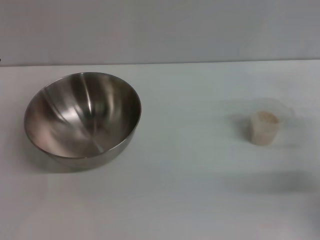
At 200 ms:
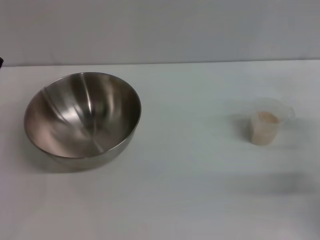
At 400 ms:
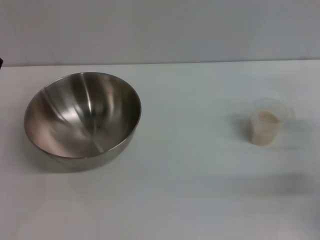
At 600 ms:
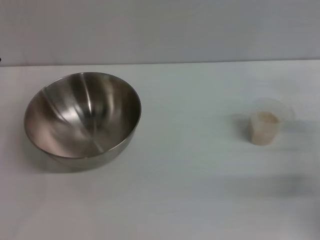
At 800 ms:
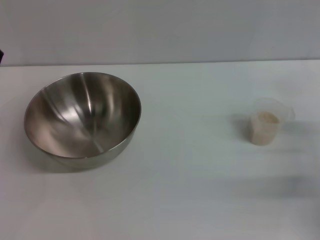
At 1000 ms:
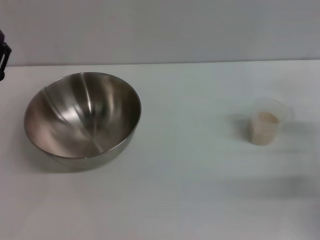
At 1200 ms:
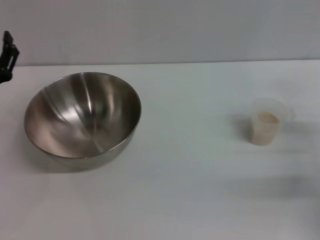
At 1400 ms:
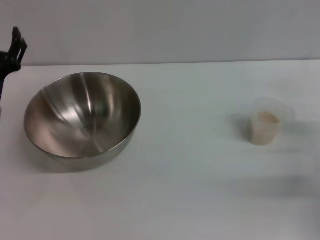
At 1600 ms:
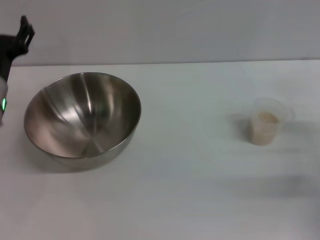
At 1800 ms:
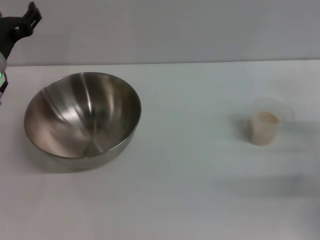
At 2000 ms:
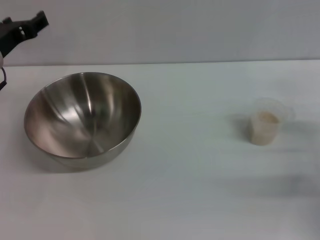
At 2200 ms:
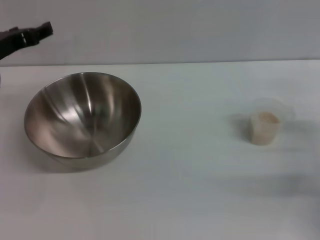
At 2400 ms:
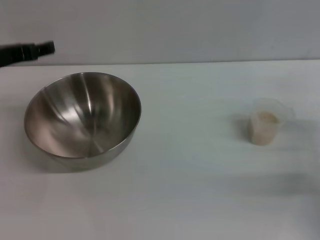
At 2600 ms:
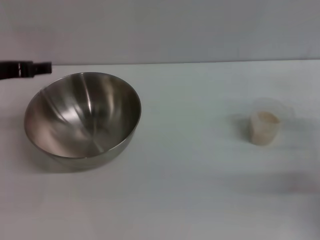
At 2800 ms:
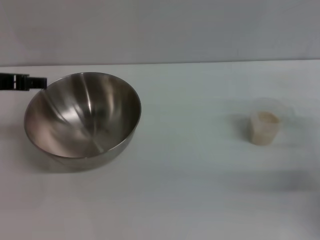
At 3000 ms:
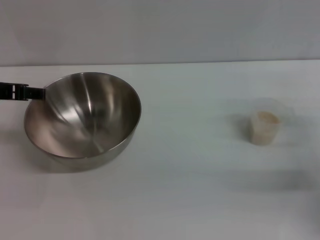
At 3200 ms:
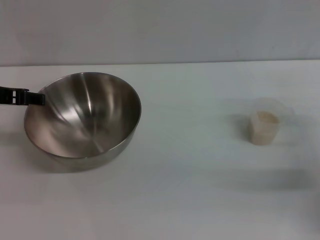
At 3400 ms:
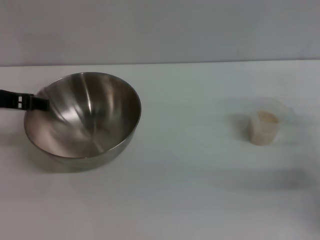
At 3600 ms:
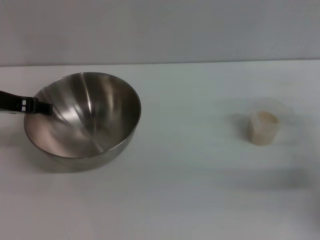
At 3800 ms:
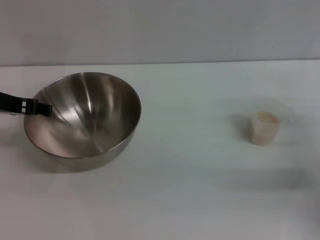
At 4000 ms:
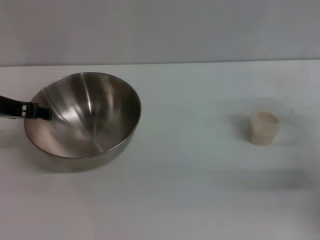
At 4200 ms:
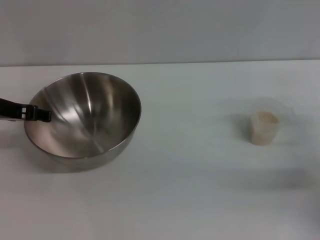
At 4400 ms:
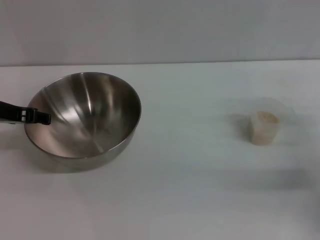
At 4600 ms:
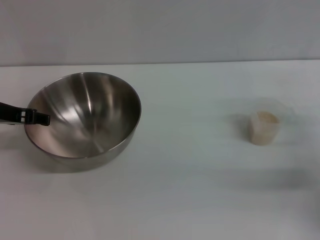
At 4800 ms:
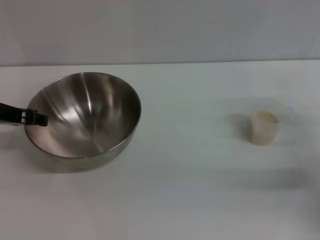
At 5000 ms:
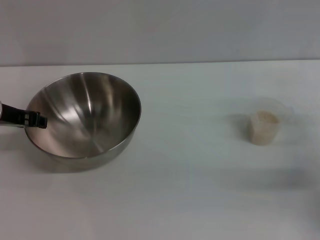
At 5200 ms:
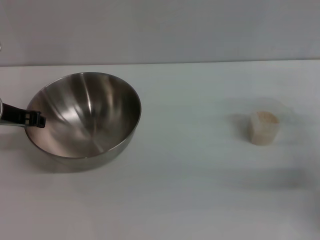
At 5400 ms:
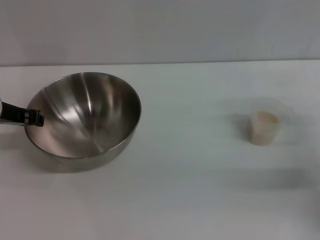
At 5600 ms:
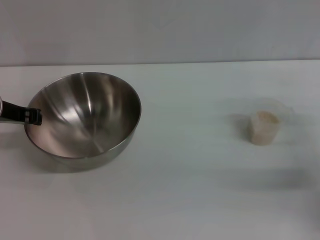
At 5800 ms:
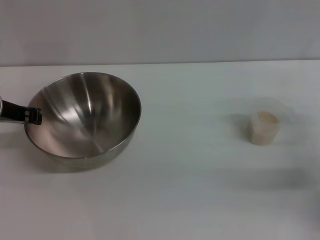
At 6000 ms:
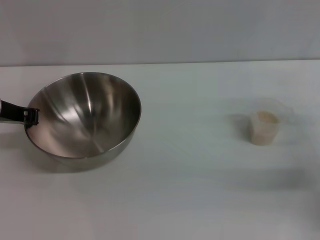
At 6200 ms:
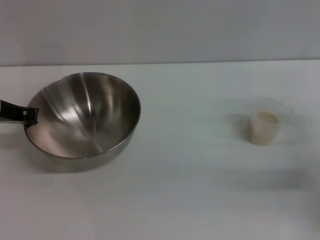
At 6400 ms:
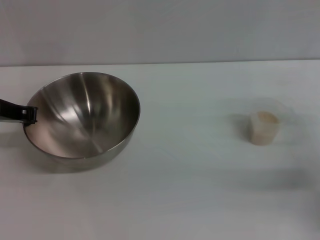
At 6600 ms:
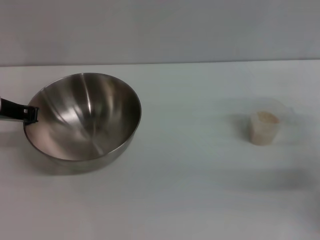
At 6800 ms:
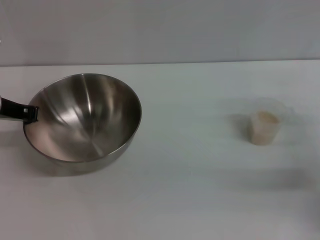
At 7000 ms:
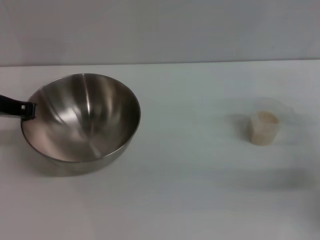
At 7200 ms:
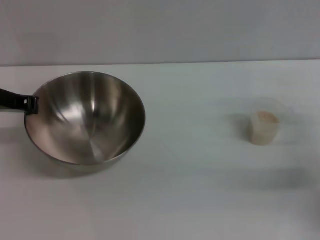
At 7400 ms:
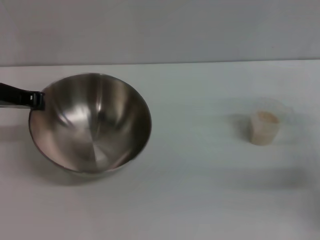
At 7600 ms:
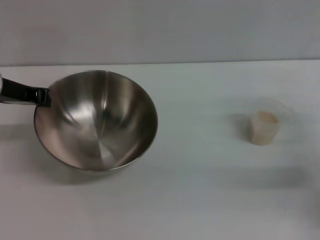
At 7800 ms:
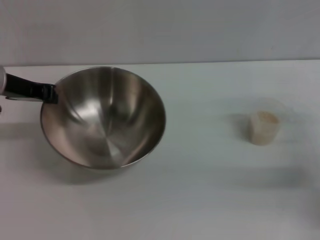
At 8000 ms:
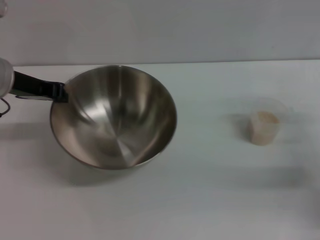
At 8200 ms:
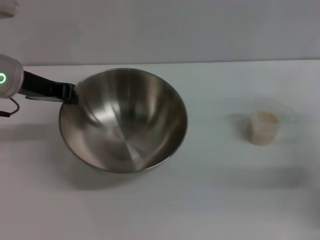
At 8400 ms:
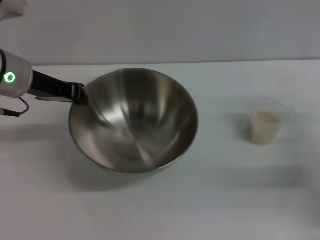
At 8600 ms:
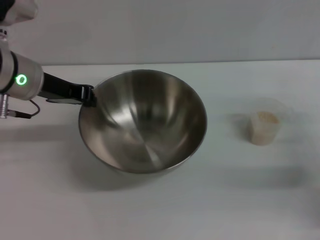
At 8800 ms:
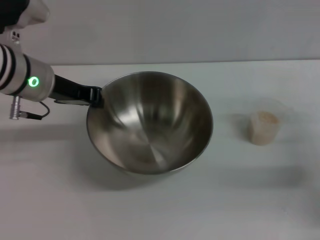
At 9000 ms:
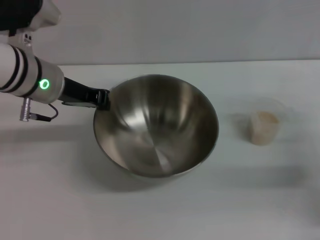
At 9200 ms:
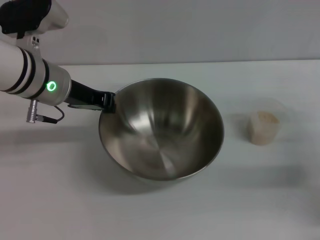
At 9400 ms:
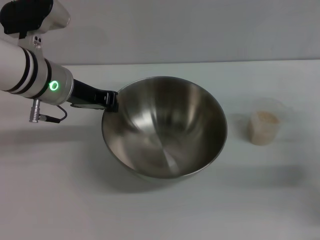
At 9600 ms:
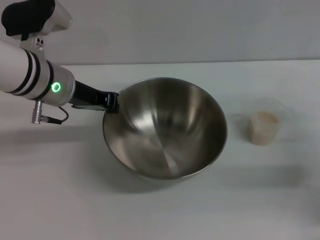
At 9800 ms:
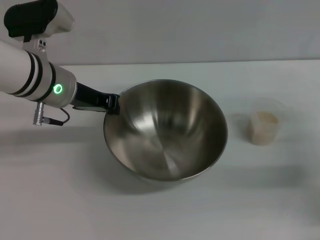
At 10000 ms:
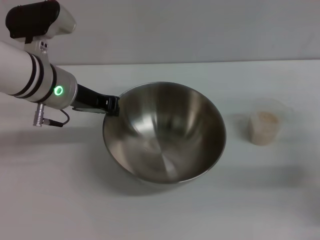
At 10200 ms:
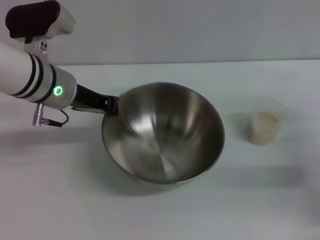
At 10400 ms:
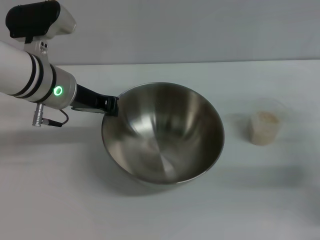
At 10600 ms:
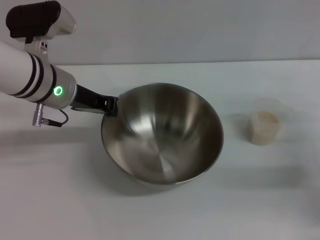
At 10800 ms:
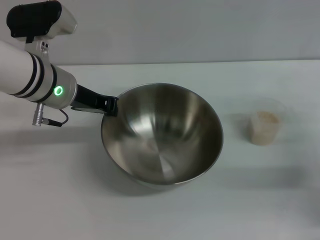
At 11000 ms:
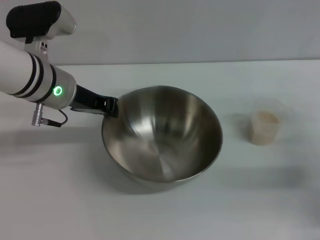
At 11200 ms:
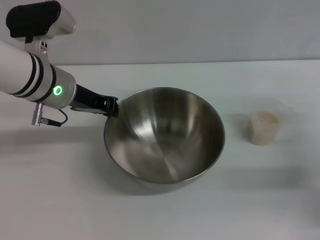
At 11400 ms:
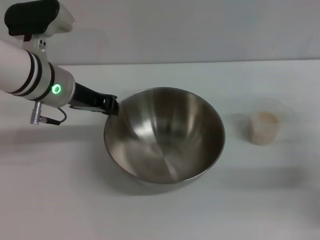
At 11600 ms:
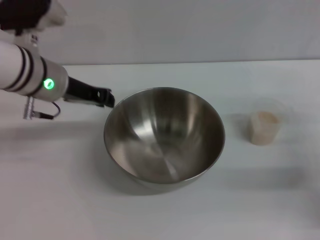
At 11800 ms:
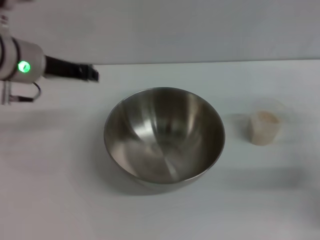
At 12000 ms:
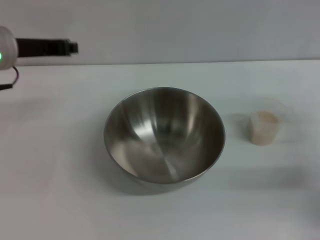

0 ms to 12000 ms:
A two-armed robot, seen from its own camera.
Task of the whole recording: Place the bowl in the middle of the table with one hand and pour the rice from the grain cup into it with the other hand.
Step, 0 ms to 8400 ms: Pick up the bowl with the left gripper.
Step, 8600 ms to 11800 ms: Place the bowl in the center of view with the left gripper.
0 ms to 1600 ms: The left gripper is displaced forward by approximately 5 cm.
1600 ms to 3000 ms: The left gripper goes about 10 cm upward.
3000 ms to 4400 ms: The left gripper moves approximately 5 cm.
6000 ms to 7600 ms: The grippers stay close to where they were, moving slightly.
7600 ms to 9000 ms: The left gripper is displaced to the right by approximately 5 cm.
9000 ms to 10400 ms: The grippers stay close to where they were, moving slightly.
10400 ms to 12000 ms: The left gripper is displaced to the left and upward by about 10 cm.

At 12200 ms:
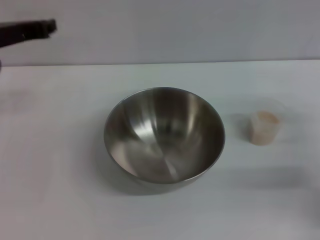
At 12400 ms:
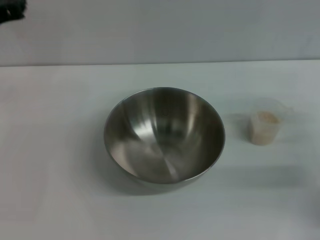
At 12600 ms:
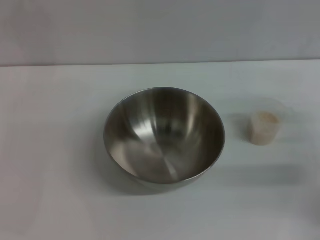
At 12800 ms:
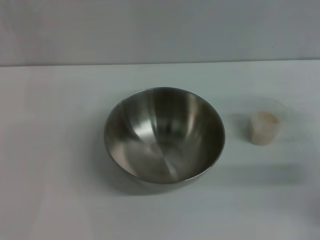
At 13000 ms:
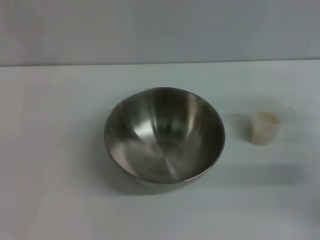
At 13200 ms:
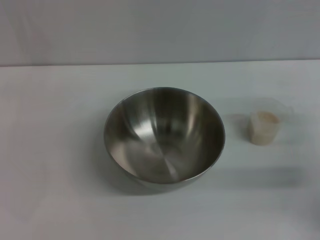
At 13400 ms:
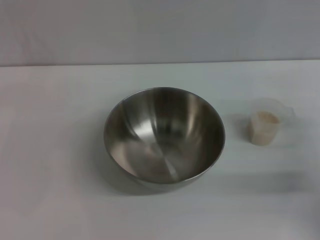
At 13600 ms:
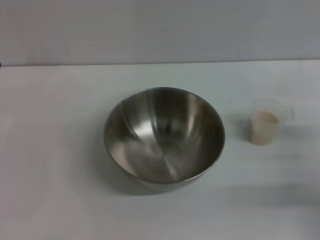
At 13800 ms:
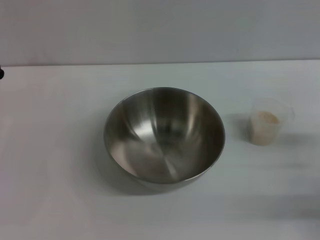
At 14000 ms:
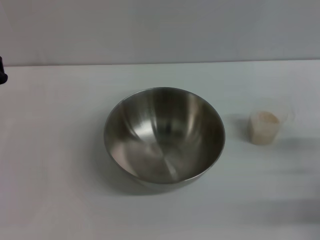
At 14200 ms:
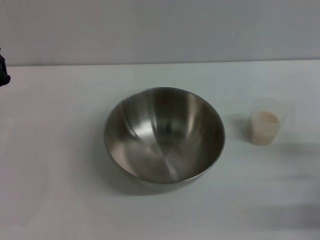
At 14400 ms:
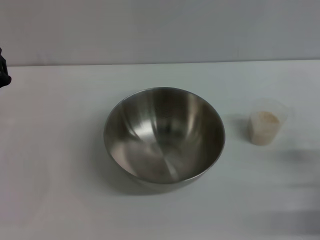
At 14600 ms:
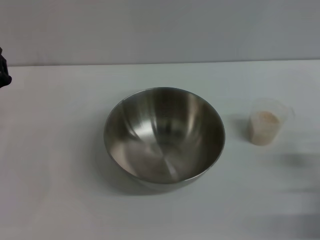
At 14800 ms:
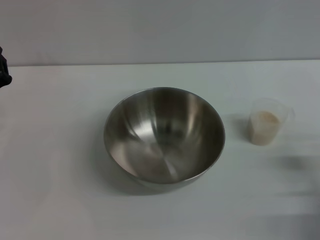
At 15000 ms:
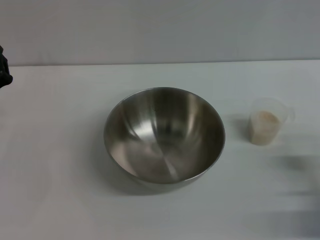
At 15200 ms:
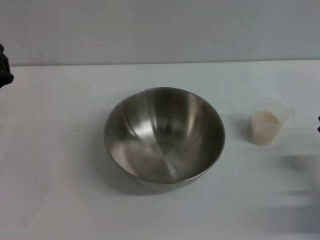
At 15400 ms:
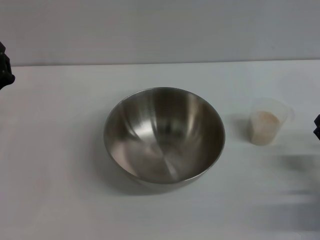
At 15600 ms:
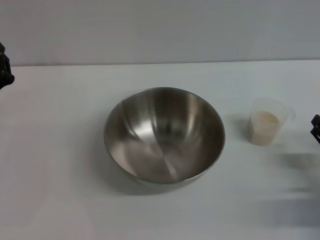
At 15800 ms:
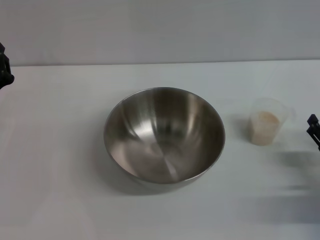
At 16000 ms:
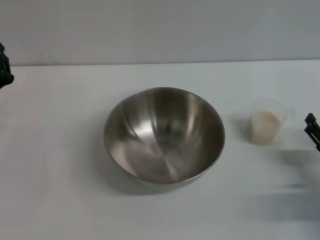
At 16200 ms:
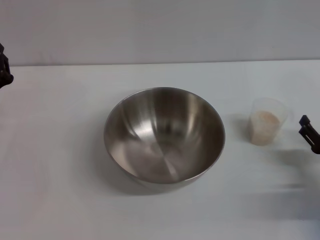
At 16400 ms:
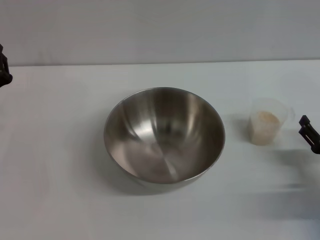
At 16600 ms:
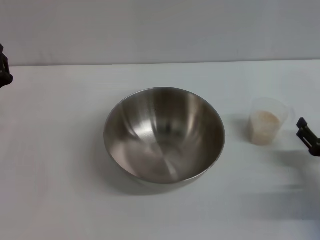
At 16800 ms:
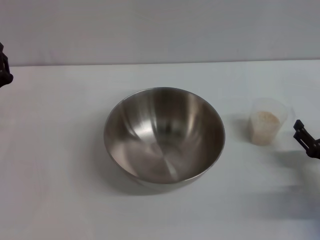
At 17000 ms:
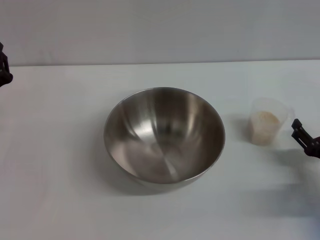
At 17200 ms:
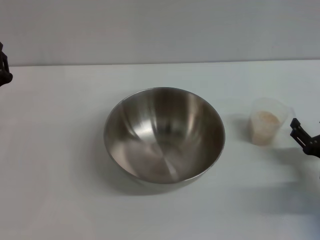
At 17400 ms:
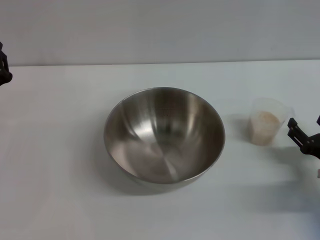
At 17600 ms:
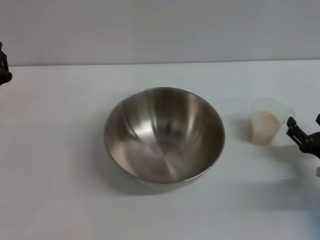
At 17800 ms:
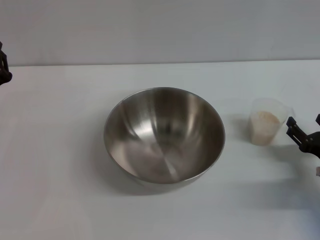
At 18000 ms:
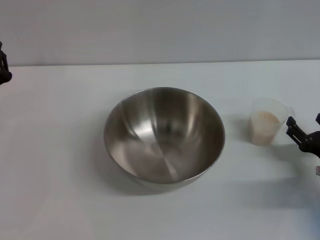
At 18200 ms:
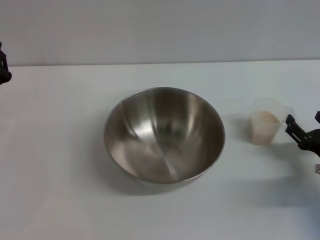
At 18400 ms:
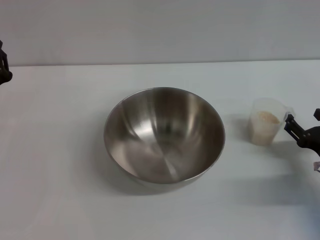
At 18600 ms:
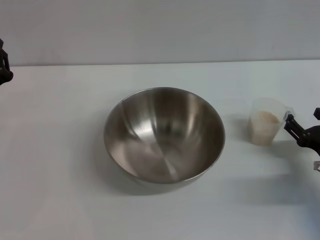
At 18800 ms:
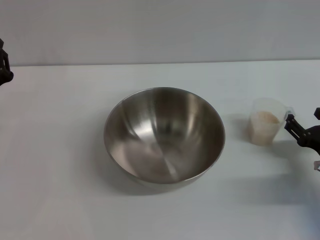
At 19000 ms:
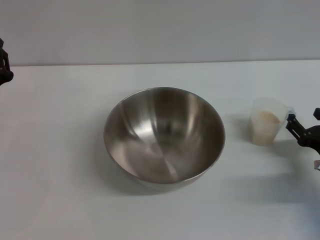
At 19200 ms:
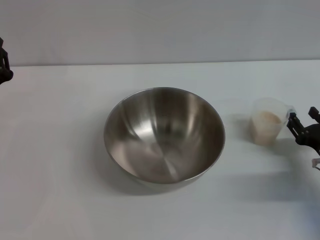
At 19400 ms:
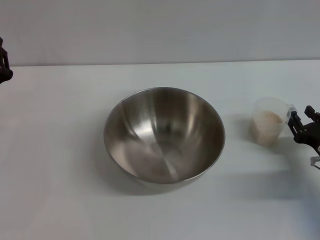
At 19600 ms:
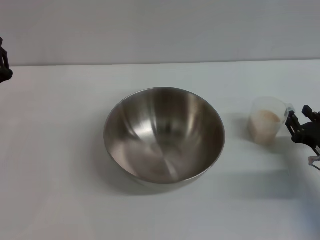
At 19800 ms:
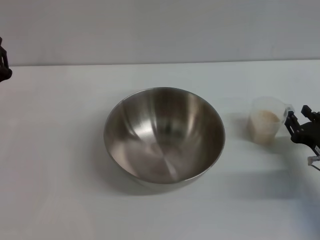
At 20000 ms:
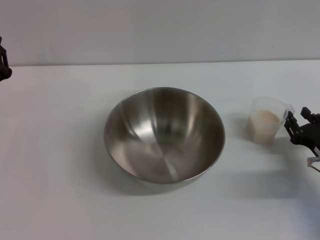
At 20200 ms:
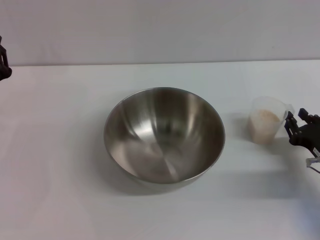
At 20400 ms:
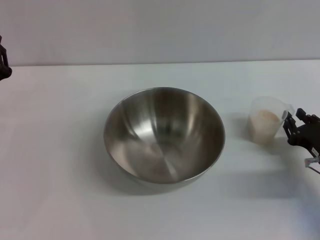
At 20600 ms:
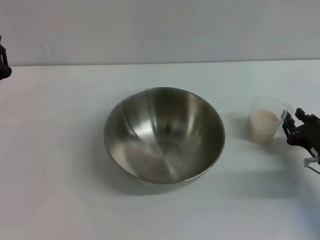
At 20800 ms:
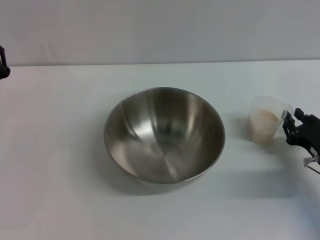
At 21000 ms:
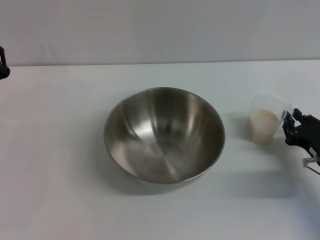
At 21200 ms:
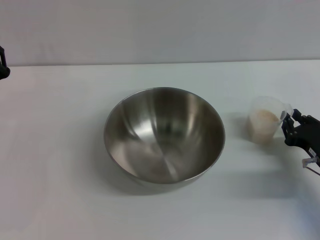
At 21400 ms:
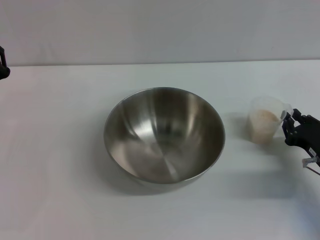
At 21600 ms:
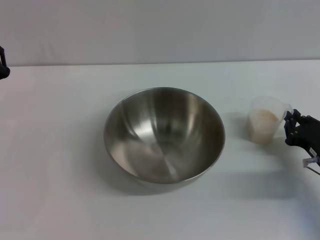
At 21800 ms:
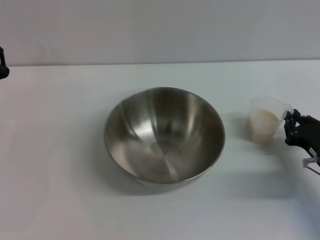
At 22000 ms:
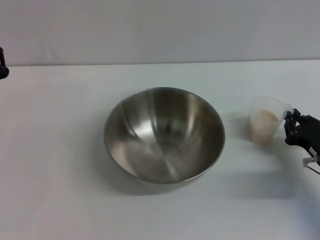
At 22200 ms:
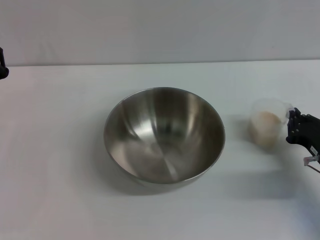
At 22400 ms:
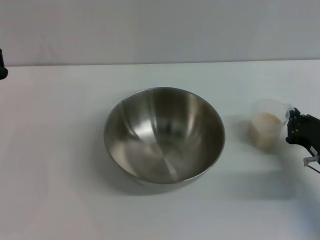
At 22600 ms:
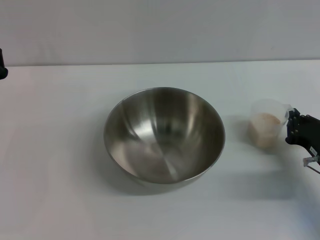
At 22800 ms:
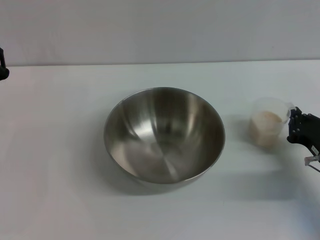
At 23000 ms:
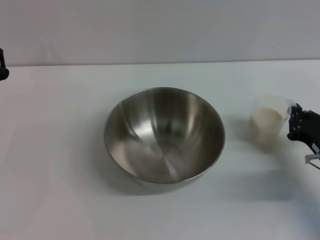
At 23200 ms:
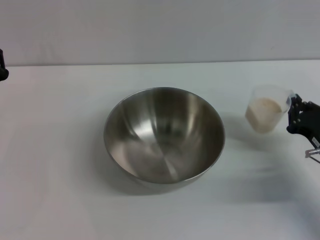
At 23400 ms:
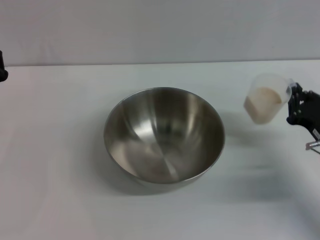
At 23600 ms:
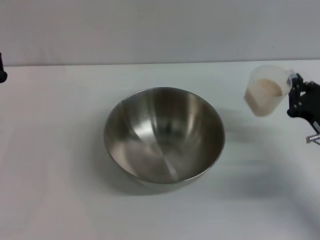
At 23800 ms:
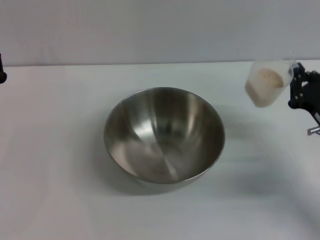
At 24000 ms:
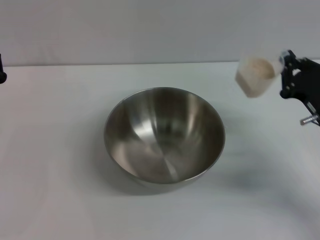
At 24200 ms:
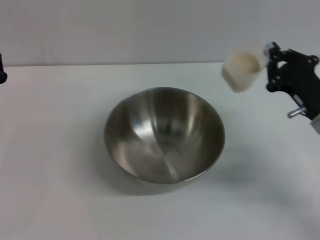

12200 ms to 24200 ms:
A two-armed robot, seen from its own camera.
Task of the whole recording: Place the bowl in the middle of the table with one hand and pour the rice from the grain cup into it with the other hand.
Step, 12200 ms to 23200 ms: Pick up the cup with rice in it with the right gripper.
12200 ms to 13800 ms: The right gripper travels backward by roughly 5 cm; the left gripper shifts roughly 15 cm downward.
13800 ms to 15200 ms: The right gripper changes place by about 5 cm.
15200 ms to 18200 ms: The grippers stay close to where they were, moving slightly.
18200 ms to 19800 ms: The right gripper closes.
19800 ms to 22600 ms: Neither gripper changes place.
22600 ms to 24200 ms: The right gripper is displaced upward by about 5 cm.
